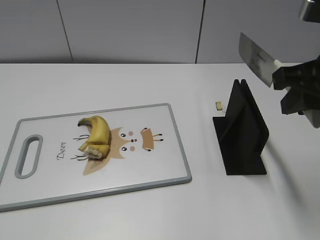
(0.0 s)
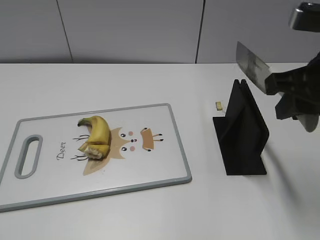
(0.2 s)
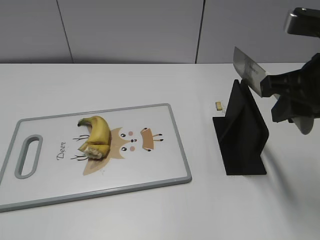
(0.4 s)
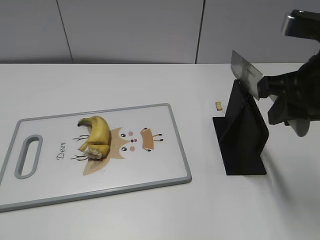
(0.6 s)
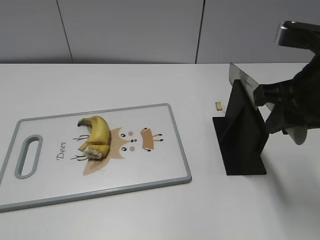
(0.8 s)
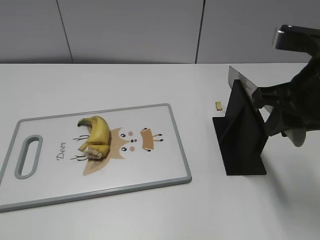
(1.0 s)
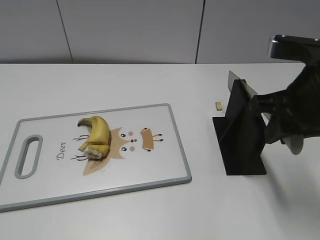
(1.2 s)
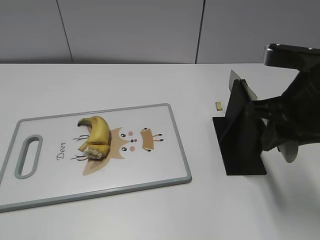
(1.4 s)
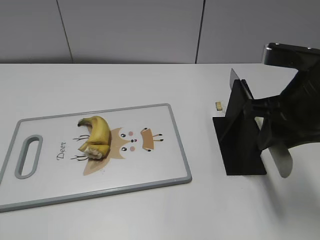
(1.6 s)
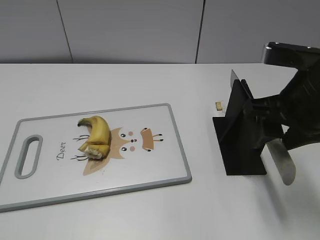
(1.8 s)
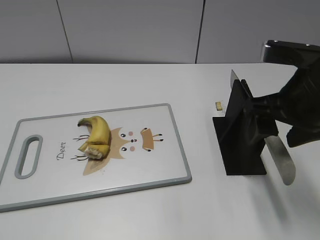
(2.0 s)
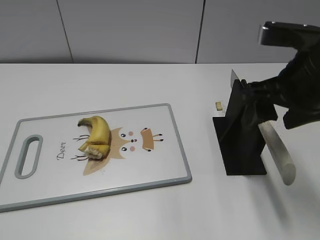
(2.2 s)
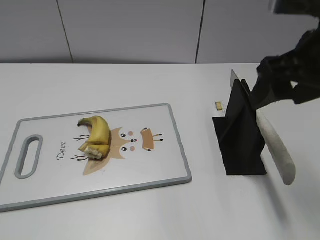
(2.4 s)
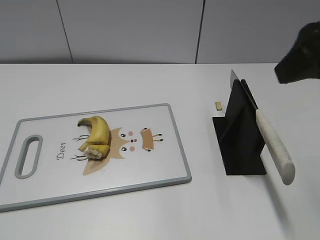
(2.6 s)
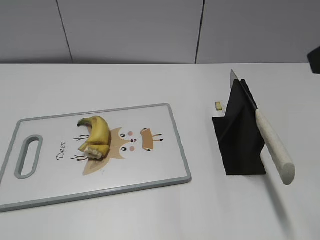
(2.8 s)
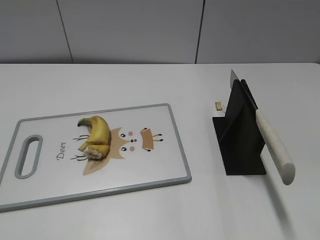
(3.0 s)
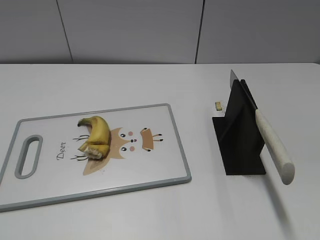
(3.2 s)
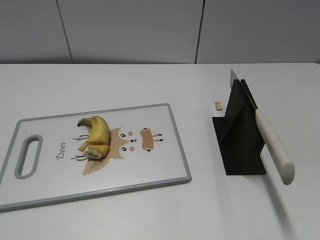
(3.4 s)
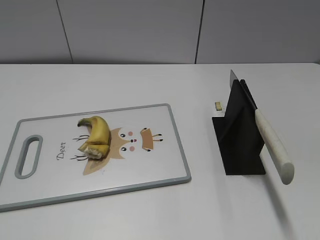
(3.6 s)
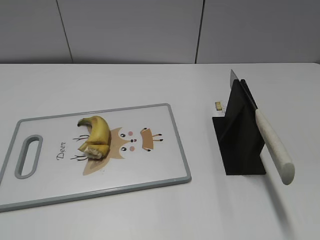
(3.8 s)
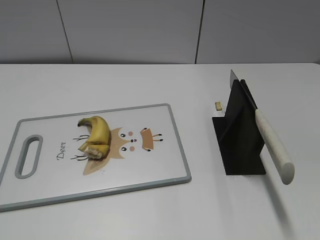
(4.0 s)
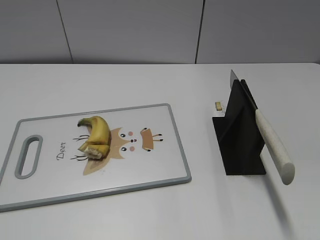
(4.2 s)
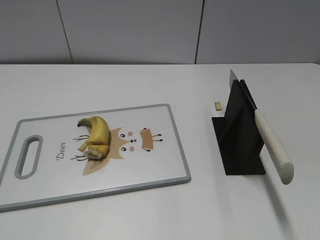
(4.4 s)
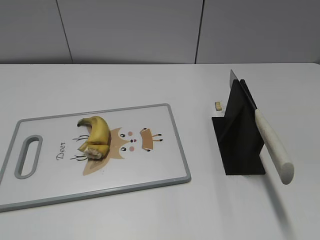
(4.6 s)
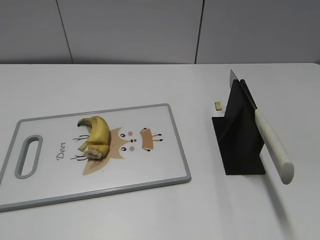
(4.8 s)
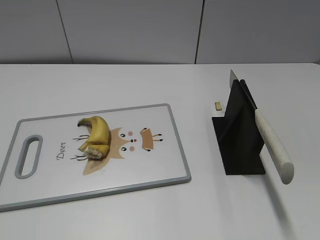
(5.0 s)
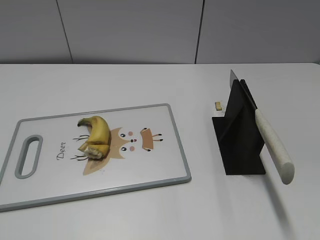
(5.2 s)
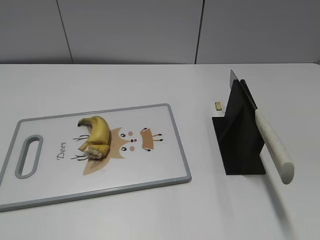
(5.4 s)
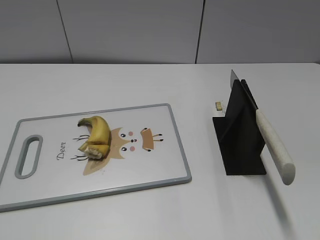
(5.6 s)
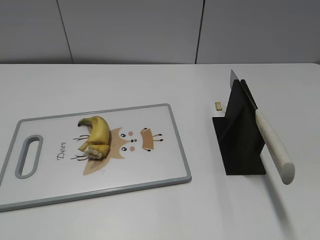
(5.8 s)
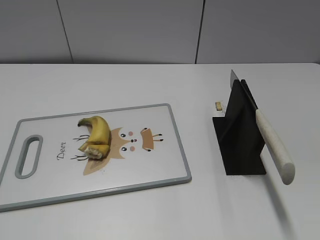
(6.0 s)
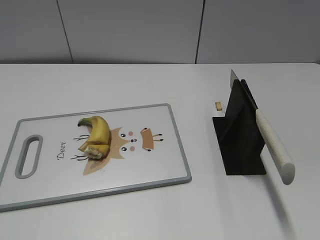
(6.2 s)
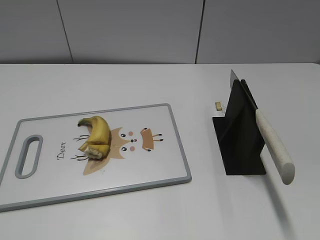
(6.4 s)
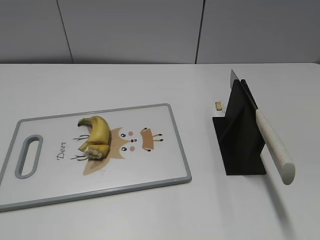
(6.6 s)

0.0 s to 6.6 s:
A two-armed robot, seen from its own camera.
Task of the whole recording: cut banana.
Step, 1.4 to 6.6 s: Place the knife on the storage rack with your right hand.
0.0 to 1.6 s: The right gripper shifts about 5 cm downward.
1.6 to 3.2 s: The right gripper moves backward, upward and to the right, approximately 20 cm, and opens its fingers.

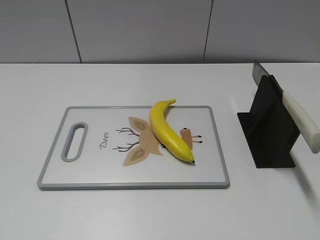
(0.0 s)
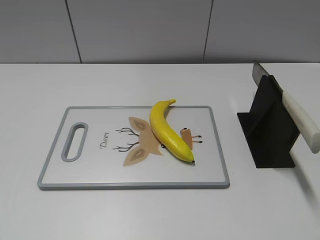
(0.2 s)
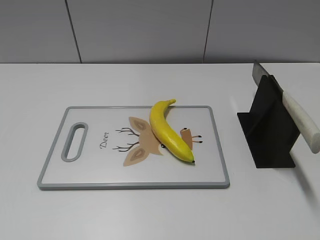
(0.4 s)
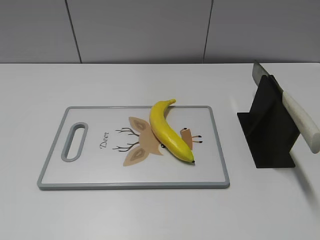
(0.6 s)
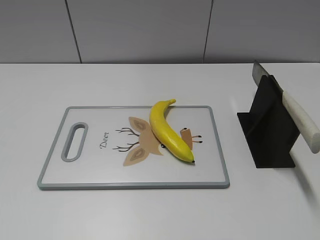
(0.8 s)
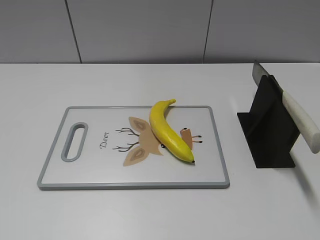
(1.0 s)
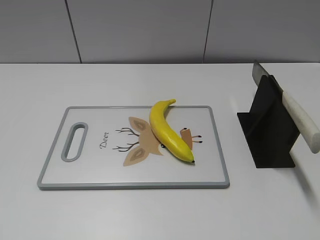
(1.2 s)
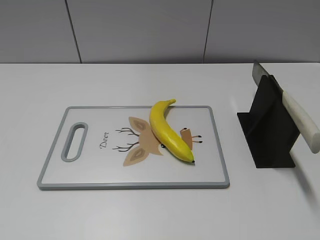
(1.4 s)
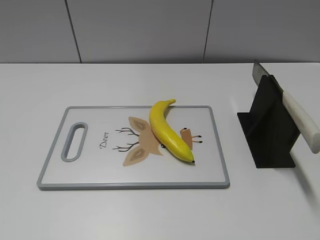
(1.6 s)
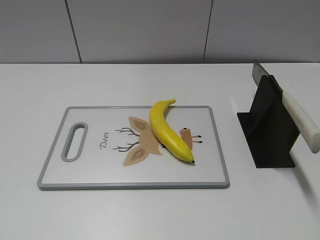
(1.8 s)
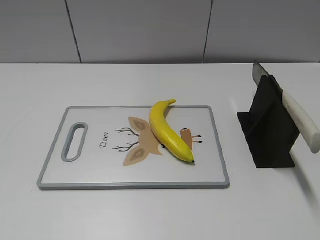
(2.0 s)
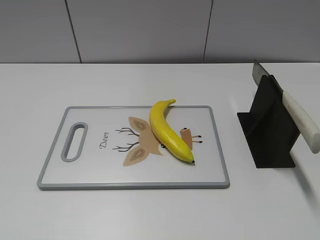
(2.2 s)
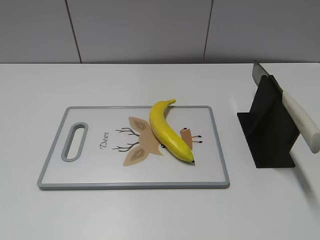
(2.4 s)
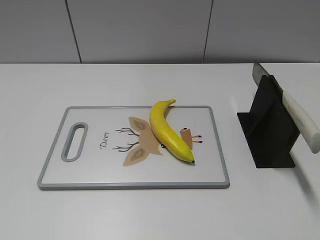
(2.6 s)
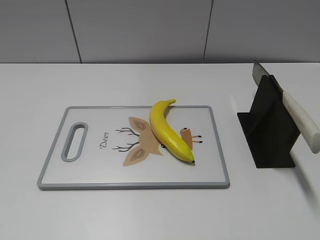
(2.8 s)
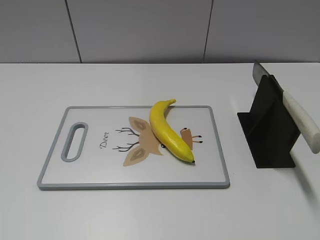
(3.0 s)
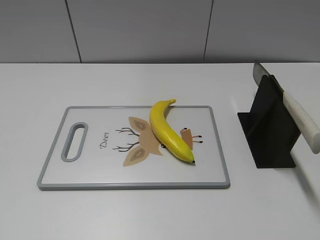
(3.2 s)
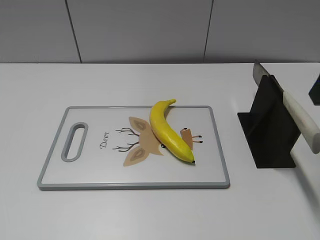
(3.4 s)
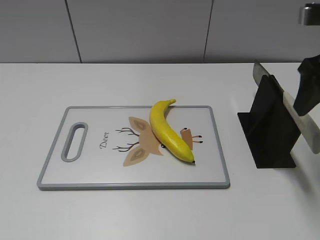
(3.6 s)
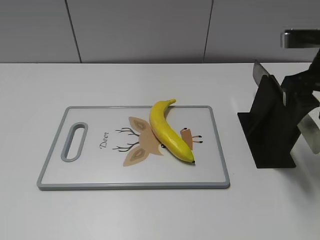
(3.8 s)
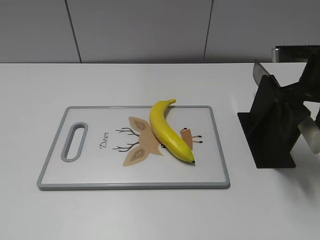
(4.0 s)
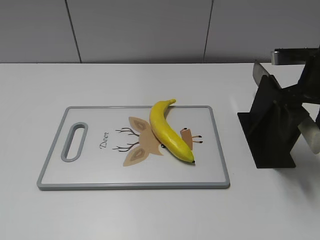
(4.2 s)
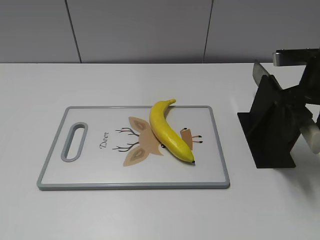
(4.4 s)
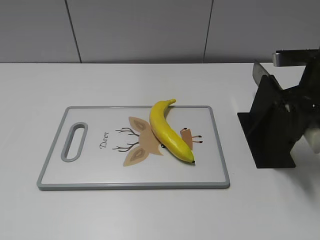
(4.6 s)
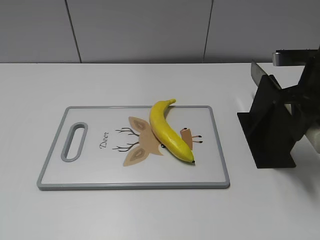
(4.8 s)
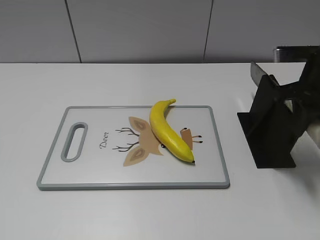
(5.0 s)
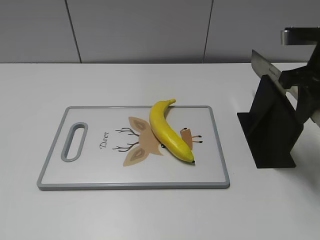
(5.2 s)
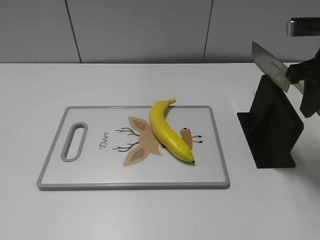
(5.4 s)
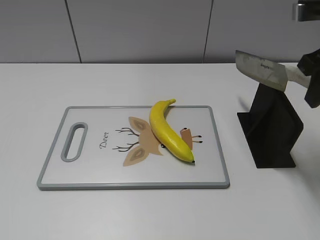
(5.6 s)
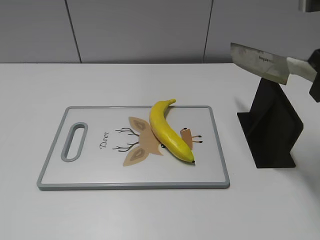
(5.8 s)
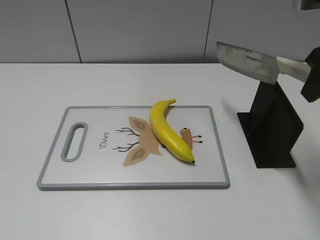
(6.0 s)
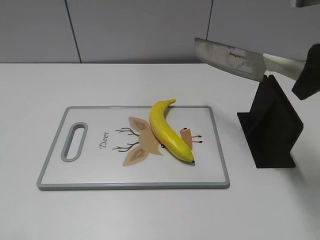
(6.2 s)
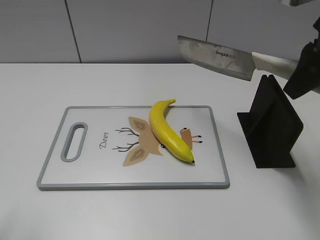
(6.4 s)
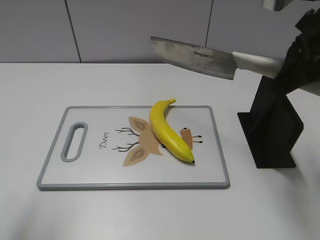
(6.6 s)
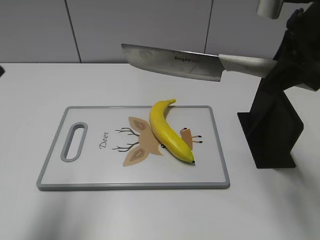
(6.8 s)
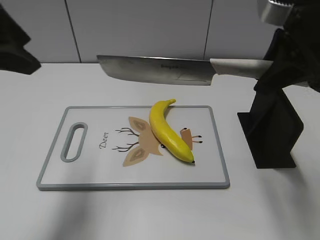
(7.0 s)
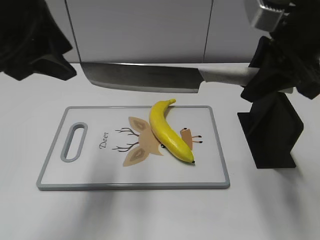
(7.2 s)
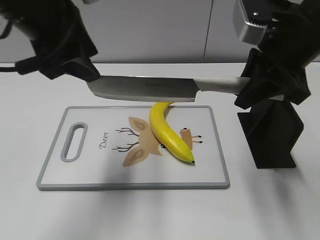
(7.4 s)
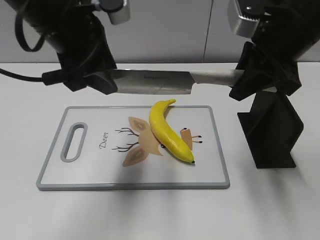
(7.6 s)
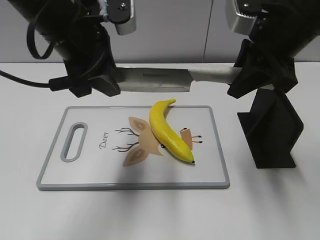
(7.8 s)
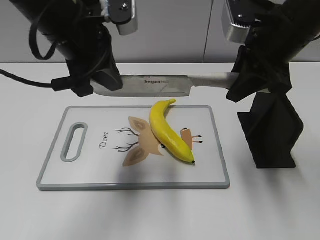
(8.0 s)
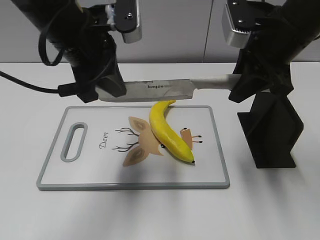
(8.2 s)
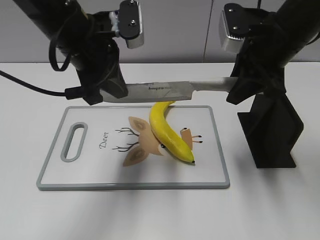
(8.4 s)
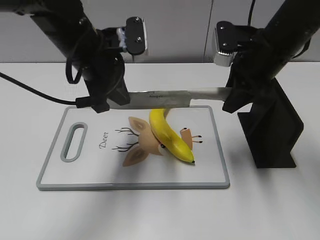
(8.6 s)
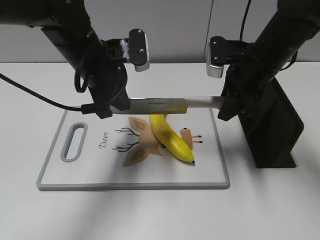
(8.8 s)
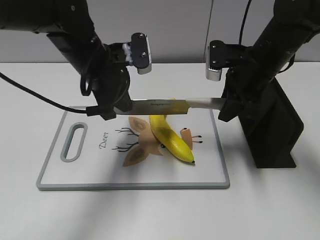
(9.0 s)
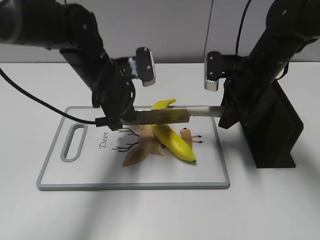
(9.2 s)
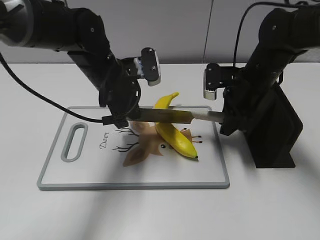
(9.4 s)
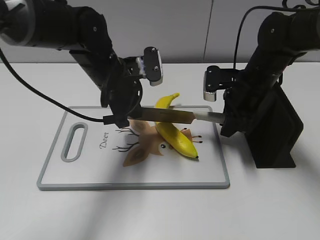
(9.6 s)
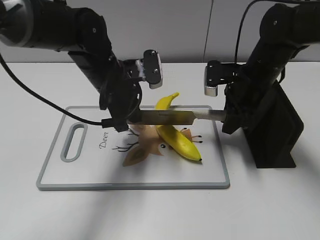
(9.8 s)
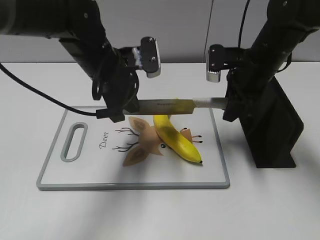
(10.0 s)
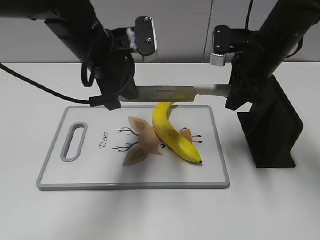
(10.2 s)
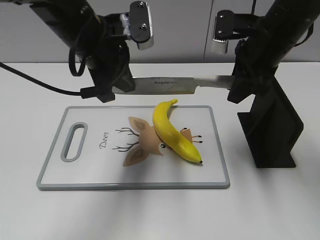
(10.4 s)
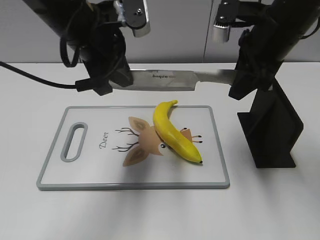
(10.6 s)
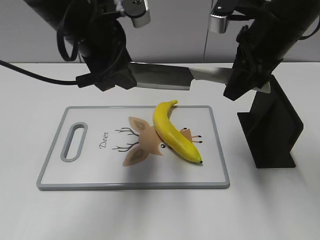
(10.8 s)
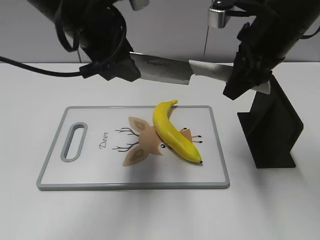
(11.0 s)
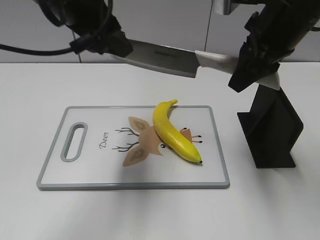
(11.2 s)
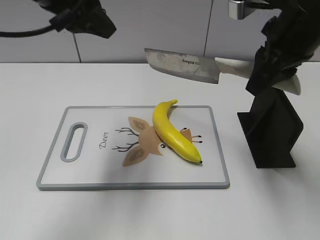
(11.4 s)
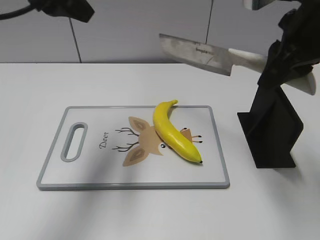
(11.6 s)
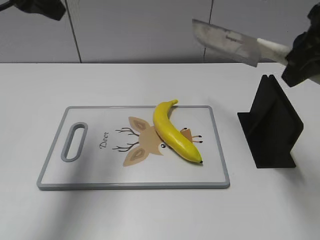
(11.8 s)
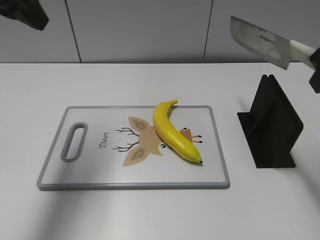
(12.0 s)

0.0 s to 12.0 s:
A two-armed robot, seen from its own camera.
Task of the whole recording: cut plastic banana.
Step, 0.0 to 5.6 s: Grab the knife handle with your right hand.
Step, 5.8 to 9.8 s: Lift the knife with your right hand.
Step, 10.0 to 11.6 s: Cut the banana with your right hand.
3.0 to 4.4 s: The right gripper heads forward and downward, covering about 25 cm.
4.4 to 6.0 s: The right gripper heads upward, covering roughly 10 cm, and closes its fingers.
6.0 to 7.6 s: The left gripper heads forward and to the right, covering roughly 35 cm, while the right gripper shifts roughly 5 cm to the left.
7.6 to 9.0 s: The left gripper is displaced downward by about 10 cm, and closes up. The right gripper goes some 10 cm downward and forward.
9.0 to 10.4 s: The left gripper ends up some 5 cm from where it was. The right gripper shifts roughly 5 cm upward.
10.4 to 12.0 s: The right gripper shifts approximately 15 cm backward, upward and to the right; the left gripper moves to the left and upward, some 15 cm, and opens its fingers.

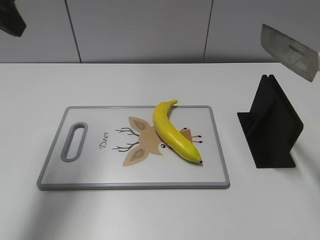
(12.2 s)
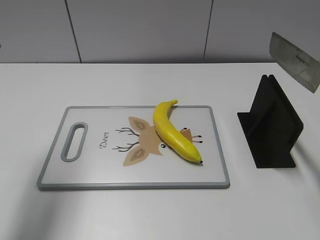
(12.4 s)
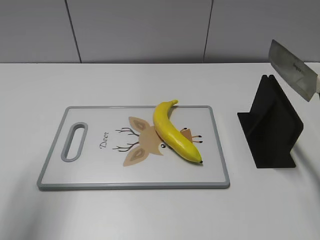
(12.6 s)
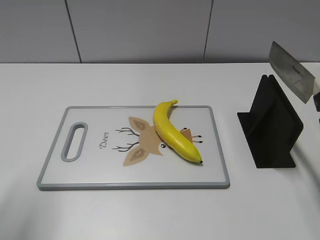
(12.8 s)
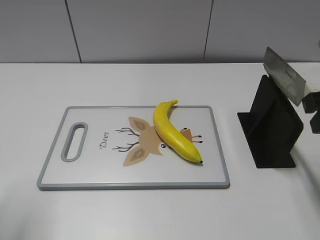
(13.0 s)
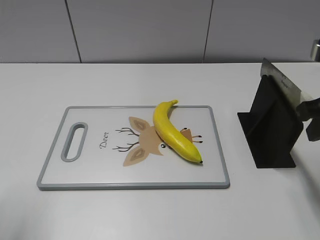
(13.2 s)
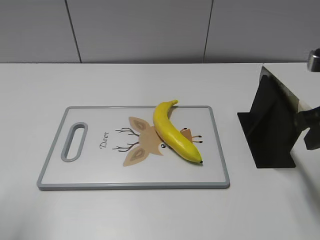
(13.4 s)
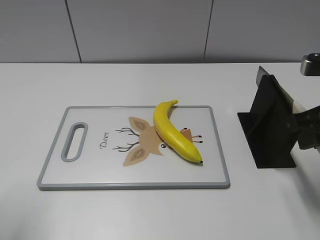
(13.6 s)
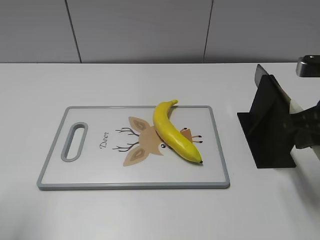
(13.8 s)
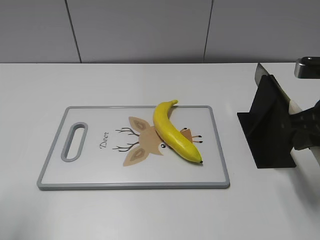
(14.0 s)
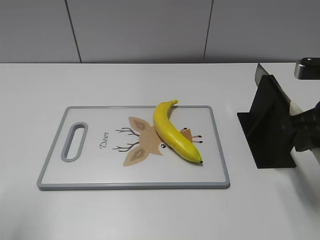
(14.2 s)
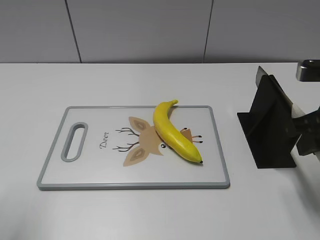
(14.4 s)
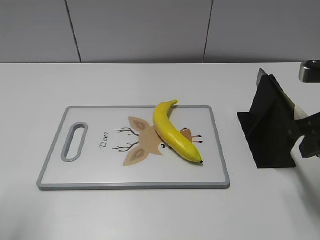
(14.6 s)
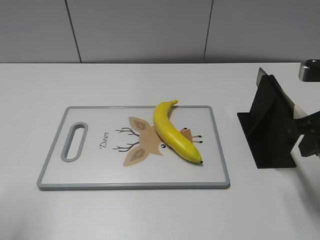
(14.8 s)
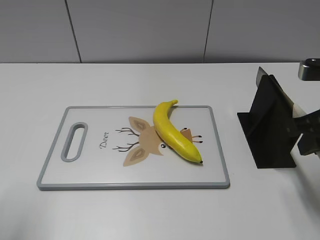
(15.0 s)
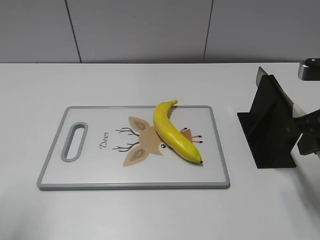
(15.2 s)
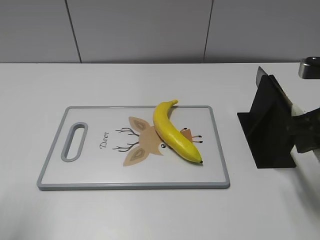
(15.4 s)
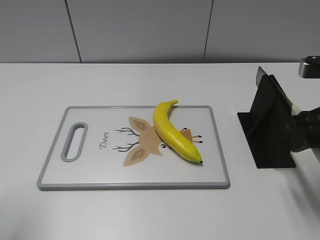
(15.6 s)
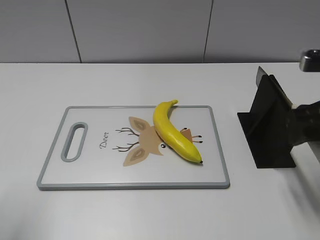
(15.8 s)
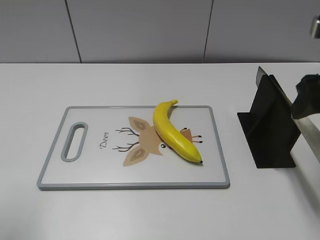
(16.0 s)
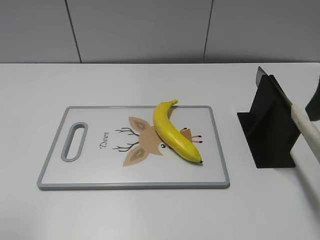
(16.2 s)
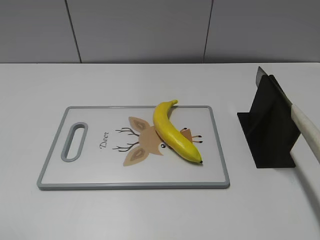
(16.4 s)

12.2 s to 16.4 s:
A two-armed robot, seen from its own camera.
Task of the whole recording: cut plastic banana.
Step, 12.2 to 13.8 s: Lift the knife with your right hand.
12.2 to 13.6 s: The right gripper shifts roughly 10 cm downward, while the left gripper heads backward and downward, covering about 15 cm.
13.6 to 15.0 s: Neither gripper changes place.
15.0 to 16.4 s: The right gripper goes some 10 cm upward, and opens.
